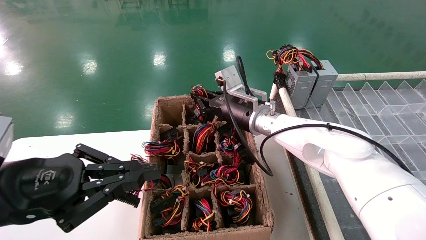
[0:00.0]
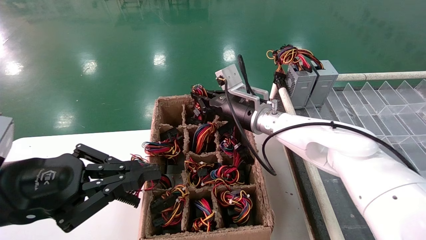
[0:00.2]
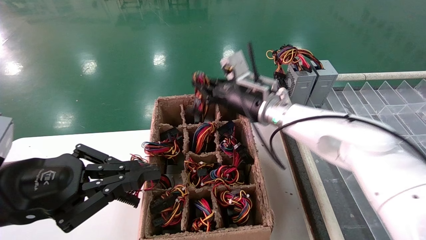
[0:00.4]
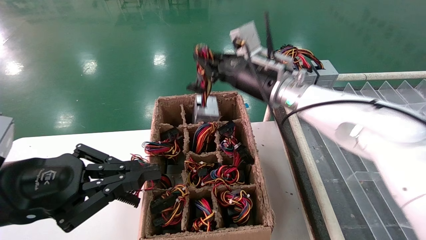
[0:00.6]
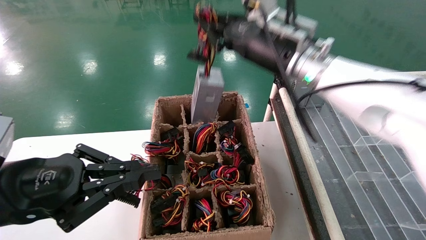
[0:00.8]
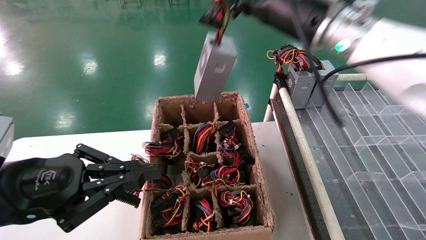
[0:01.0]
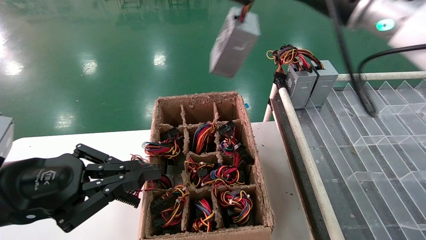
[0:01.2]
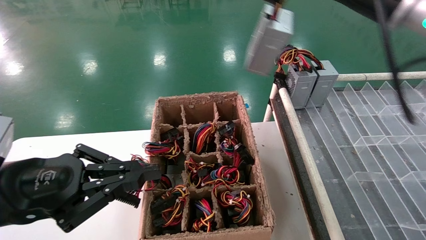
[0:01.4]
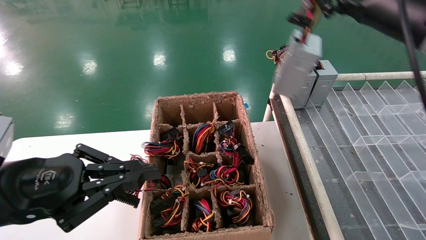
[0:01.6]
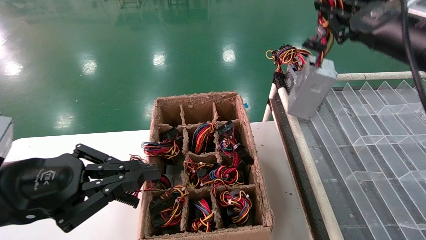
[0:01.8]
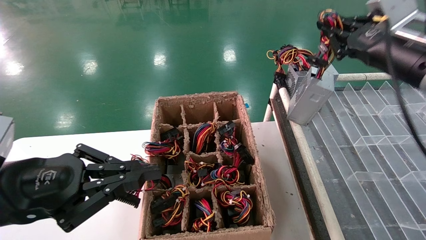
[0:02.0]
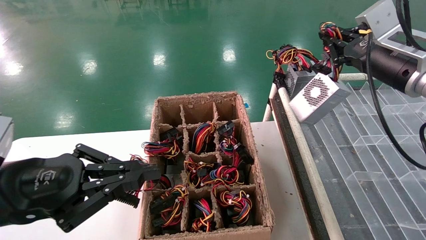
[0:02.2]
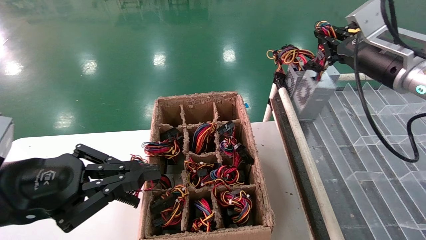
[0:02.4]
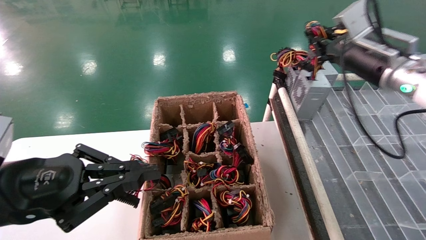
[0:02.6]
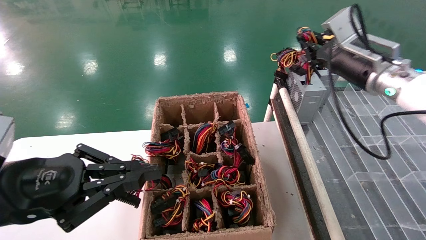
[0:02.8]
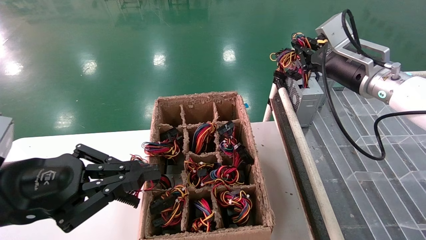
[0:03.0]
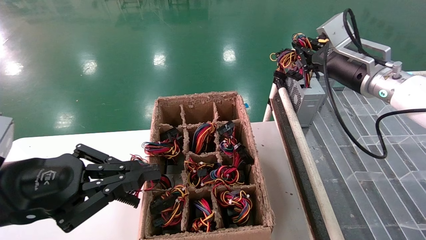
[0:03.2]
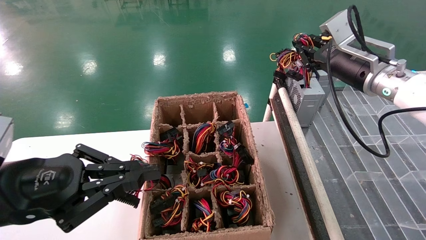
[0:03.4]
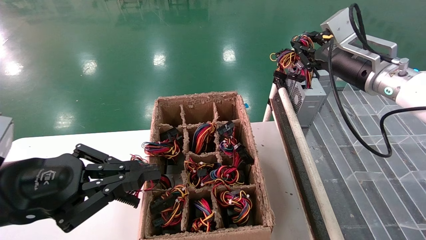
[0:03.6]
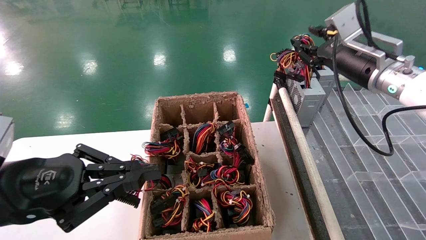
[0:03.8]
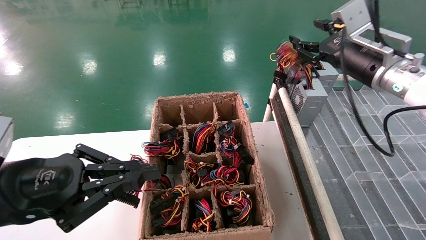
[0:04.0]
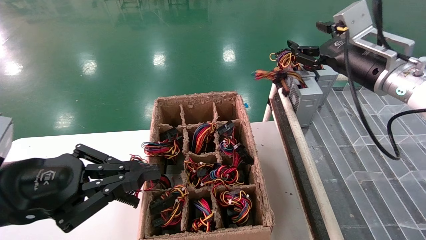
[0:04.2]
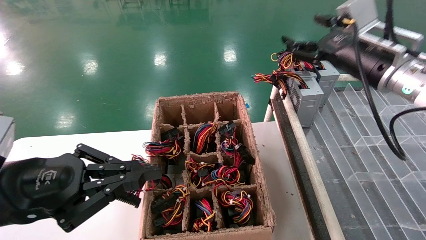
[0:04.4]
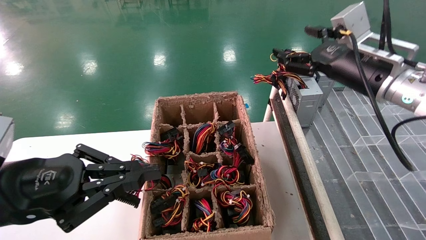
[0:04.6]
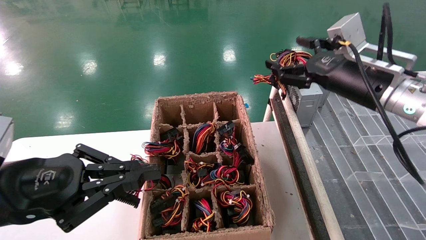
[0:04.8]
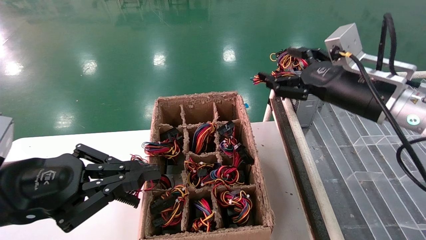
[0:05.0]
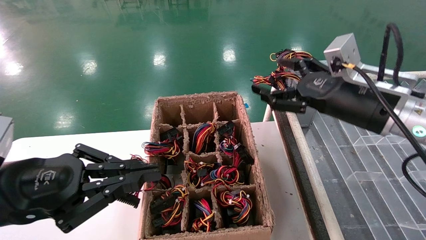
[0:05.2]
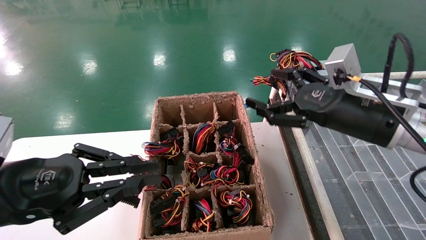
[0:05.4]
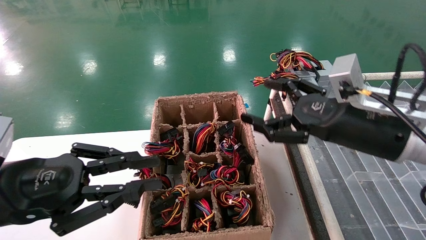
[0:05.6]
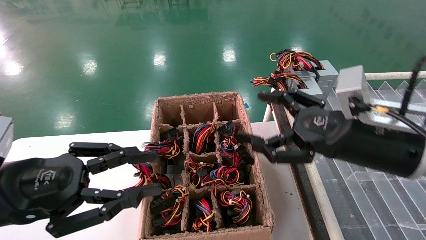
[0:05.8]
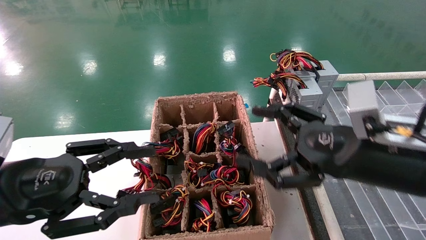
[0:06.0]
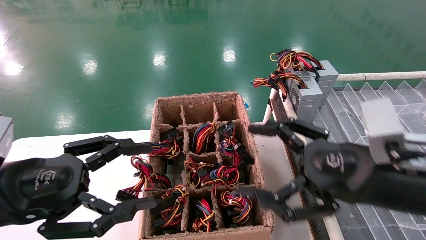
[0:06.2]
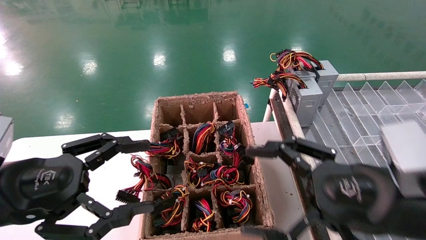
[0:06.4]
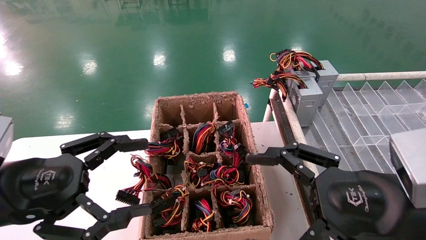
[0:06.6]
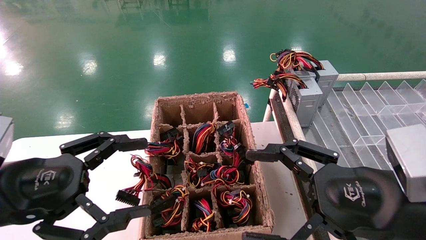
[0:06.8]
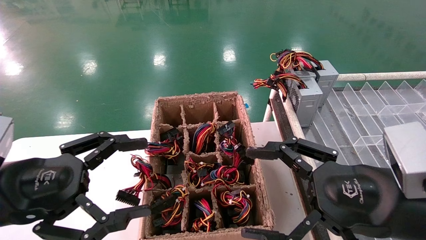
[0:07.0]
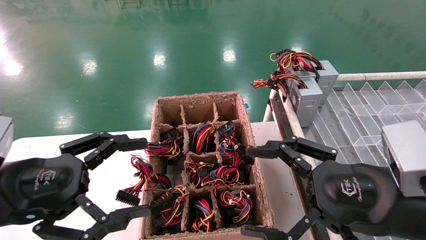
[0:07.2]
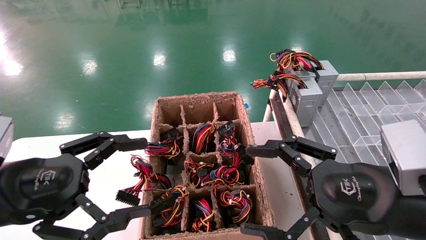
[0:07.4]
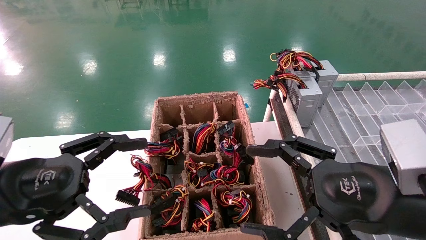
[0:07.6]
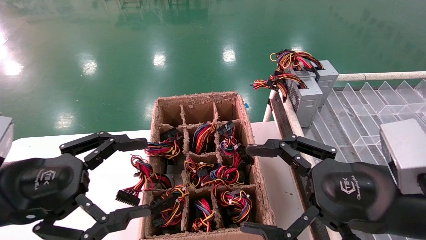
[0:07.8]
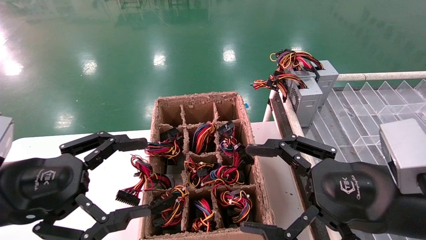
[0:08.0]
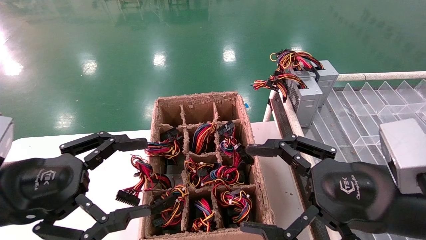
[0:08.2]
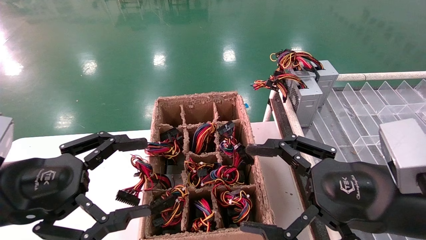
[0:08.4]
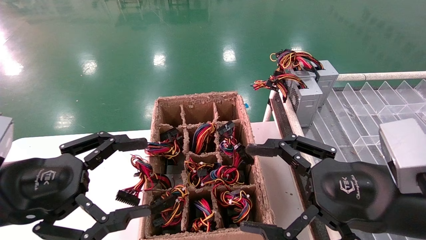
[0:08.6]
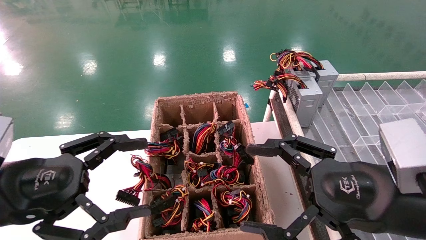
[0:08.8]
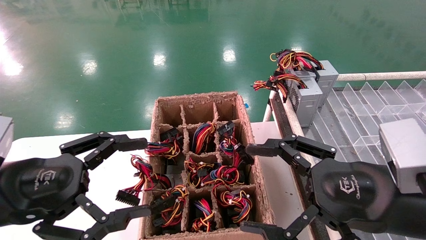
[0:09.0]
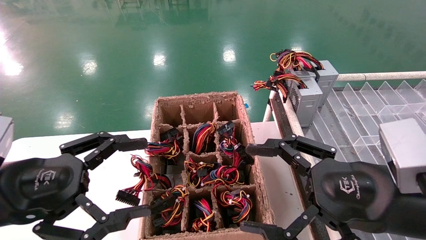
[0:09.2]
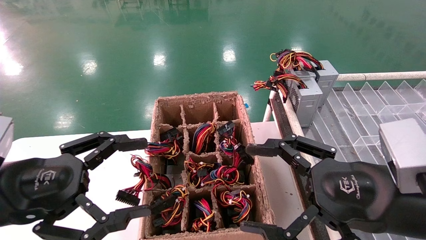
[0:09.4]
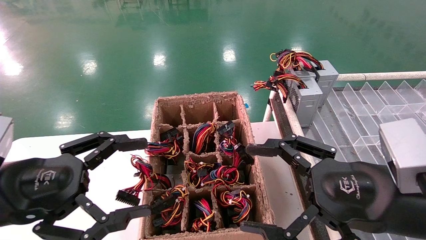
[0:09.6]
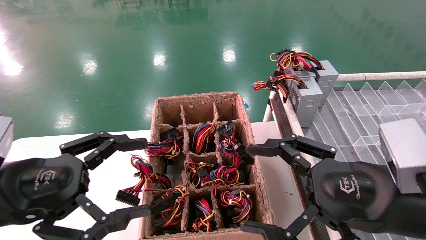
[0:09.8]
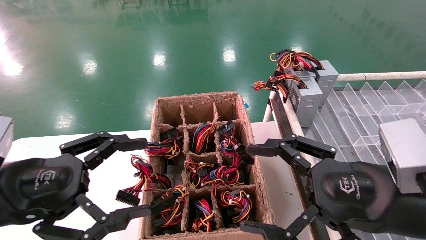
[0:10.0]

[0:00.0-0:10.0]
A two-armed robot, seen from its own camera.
Step, 0:00.4 to 0:04.2: Place the main unit power supply in the designated area.
0:00.0 to 0:01.4: The right gripper goes about 30 cm upward, backward and to the right.
0:01.4 to 0:02.8: The right gripper shifts some 15 cm downward, forward and to the right.
0:02.8 to 0:04.2: The right gripper opens up.
0:04.2 to 0:05.8: The right gripper is displaced backward and downward by approximately 15 cm, and opens up.
0:05.8 to 0:07.2: The right gripper travels backward by roughly 5 cm. The left gripper opens its fingers.
0:07.2 to 0:10.0: Both grippers stay about where they are.

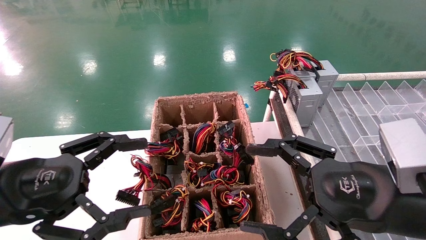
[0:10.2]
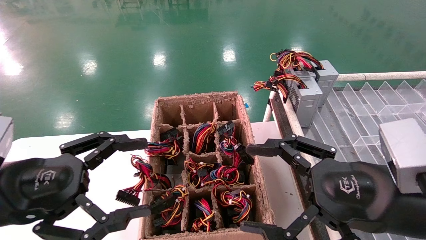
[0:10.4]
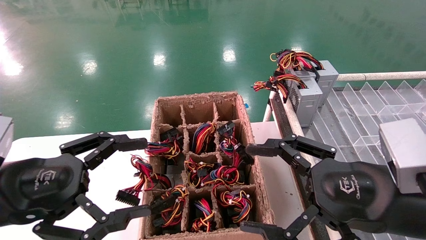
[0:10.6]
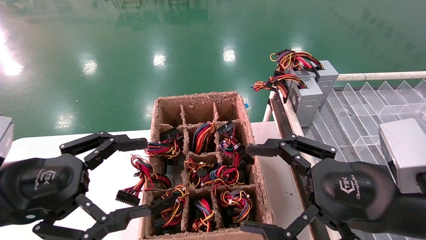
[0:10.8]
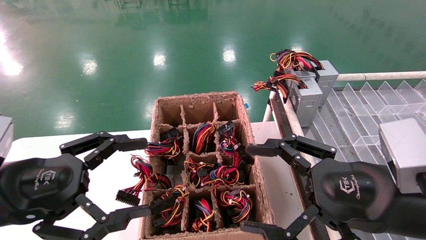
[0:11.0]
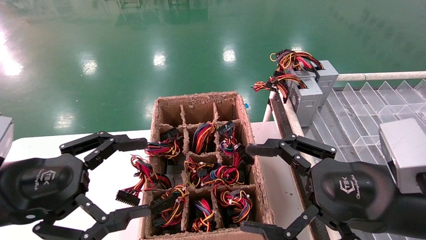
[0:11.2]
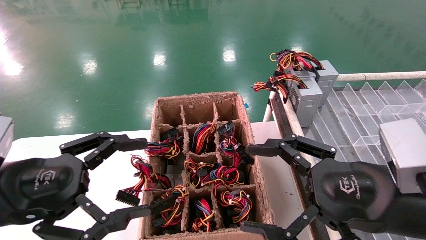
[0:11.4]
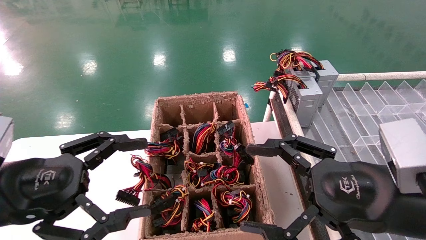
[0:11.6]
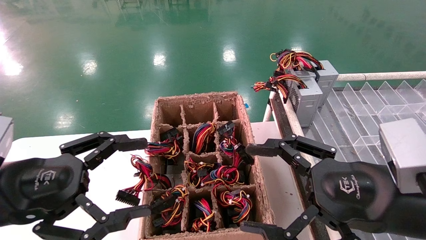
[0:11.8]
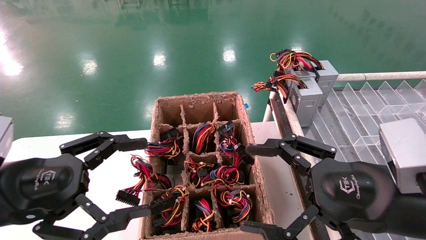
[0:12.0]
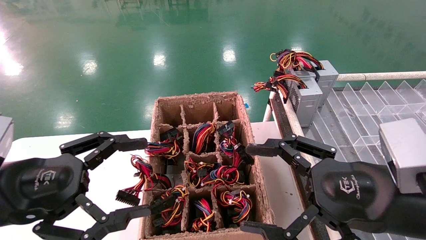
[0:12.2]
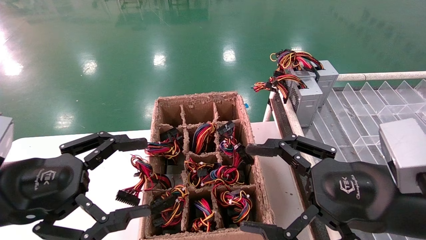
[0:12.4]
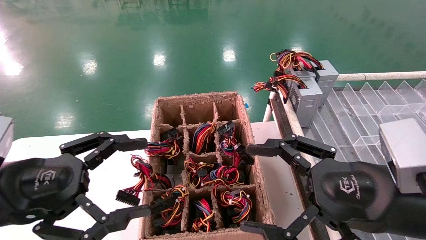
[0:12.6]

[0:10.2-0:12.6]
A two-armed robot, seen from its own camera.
0:10.2 to 0:12.6: The two grippers keep their place.

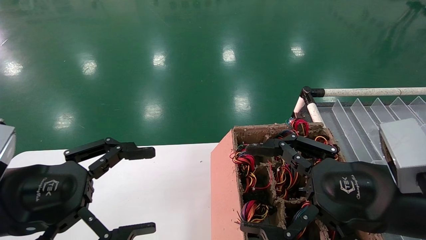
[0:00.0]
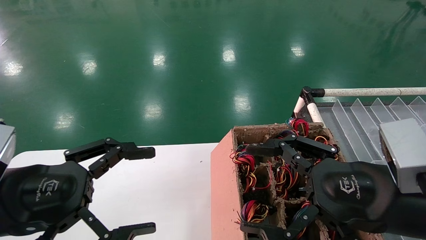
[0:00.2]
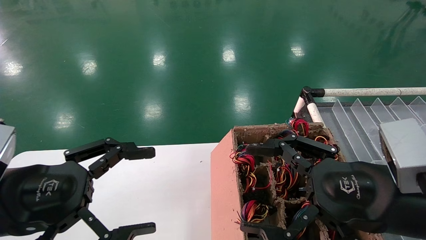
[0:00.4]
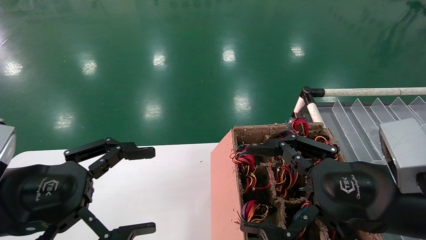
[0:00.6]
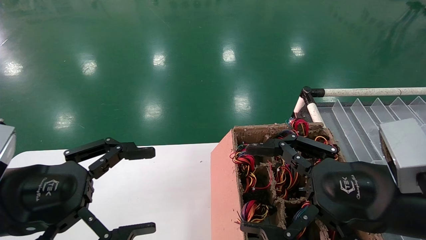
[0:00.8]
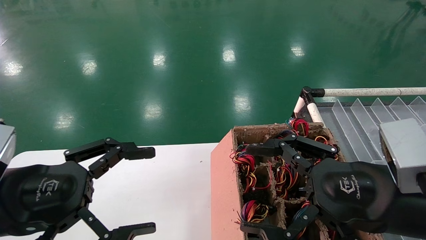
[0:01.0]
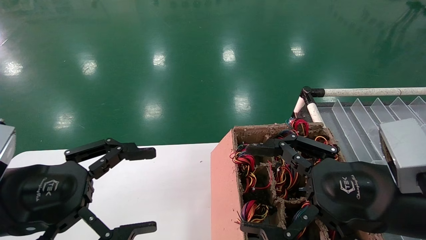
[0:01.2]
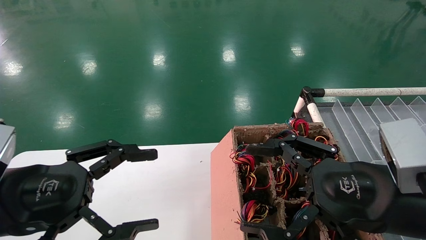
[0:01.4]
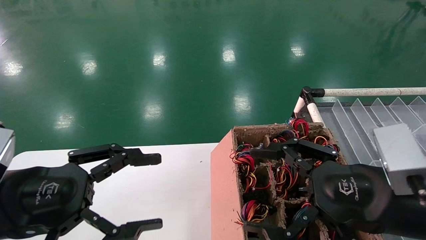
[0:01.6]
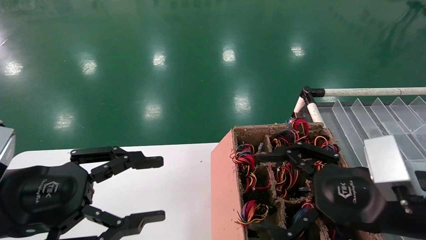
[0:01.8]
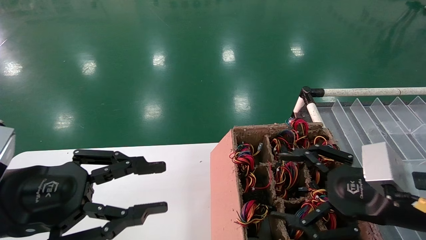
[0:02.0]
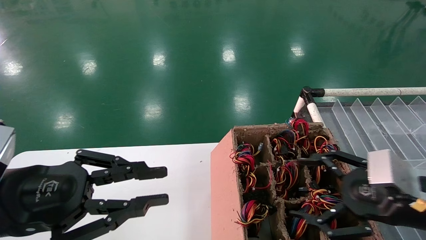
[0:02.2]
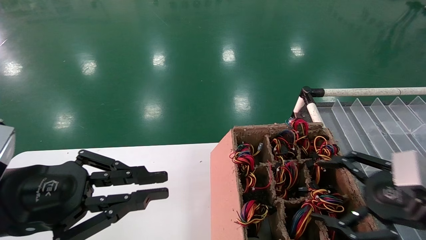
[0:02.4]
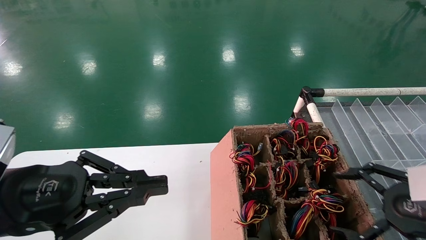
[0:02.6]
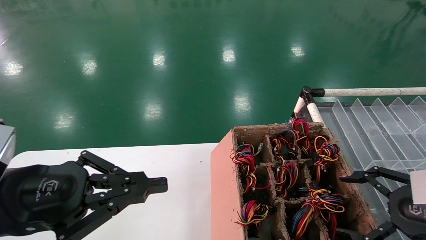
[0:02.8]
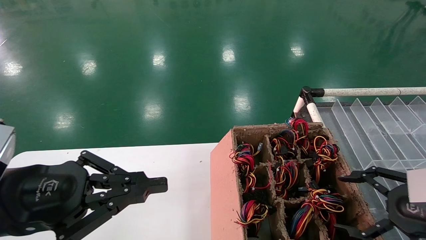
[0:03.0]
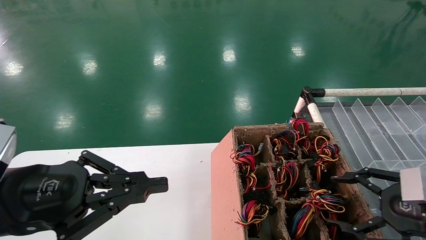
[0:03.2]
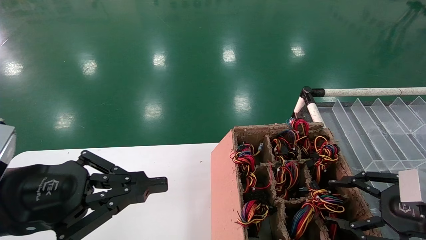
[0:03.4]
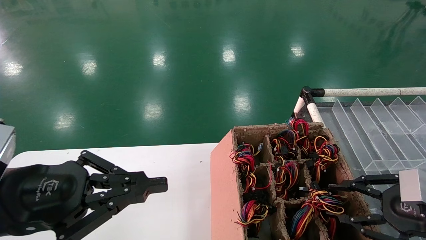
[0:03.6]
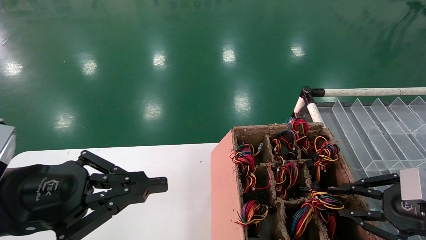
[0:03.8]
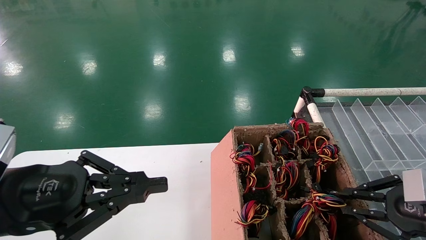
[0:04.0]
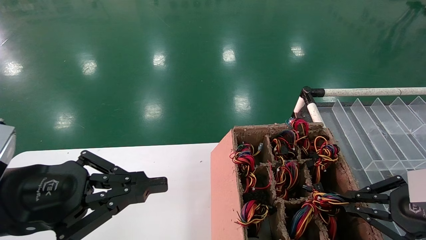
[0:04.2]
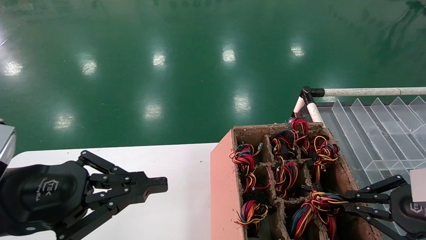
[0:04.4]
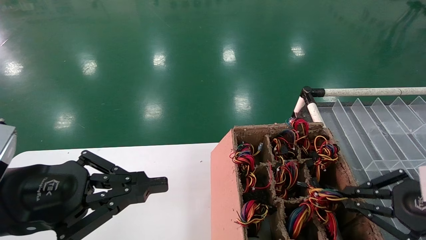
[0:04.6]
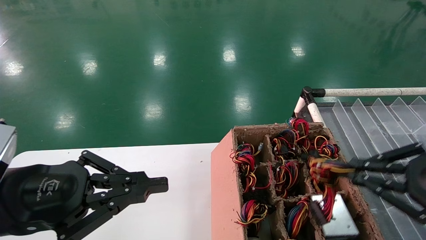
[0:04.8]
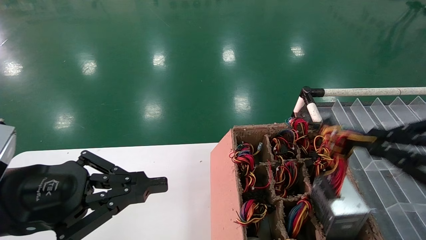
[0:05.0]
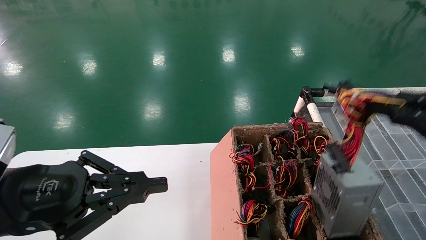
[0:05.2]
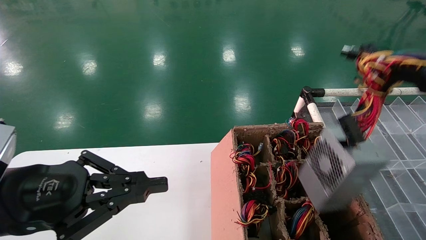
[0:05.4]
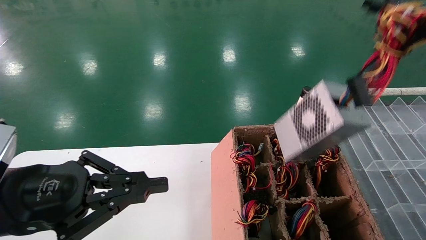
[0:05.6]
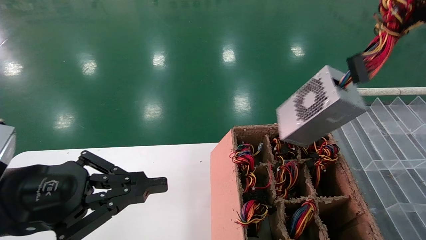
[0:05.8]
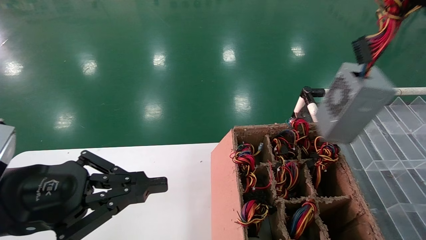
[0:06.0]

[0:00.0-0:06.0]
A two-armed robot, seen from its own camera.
Step, 0:01.8 to 0:04.2: Grab the main unit power supply from the containment box.
0:00.0 to 0:01.6: There are only small adjustments of the grippers.
0:01.6 to 0:03.0: The right gripper shifts approximately 15 cm to the right. The left gripper closes its fingers.
0:03.0 to 0:04.4: The right gripper closes.
0:04.4 to 0:06.0: The right gripper moves upward, about 15 cm.
